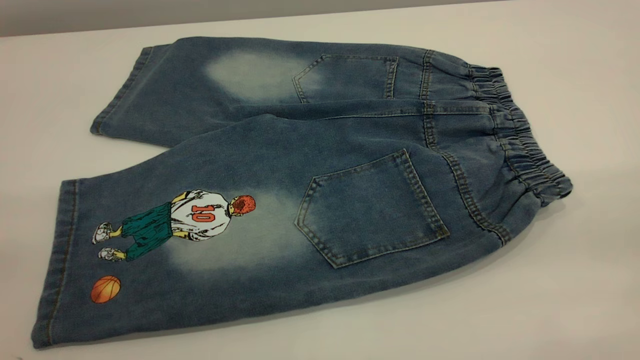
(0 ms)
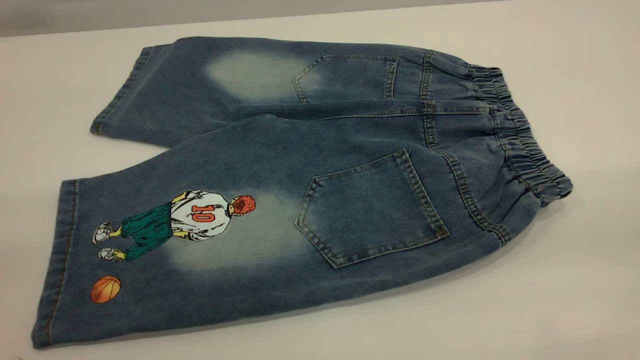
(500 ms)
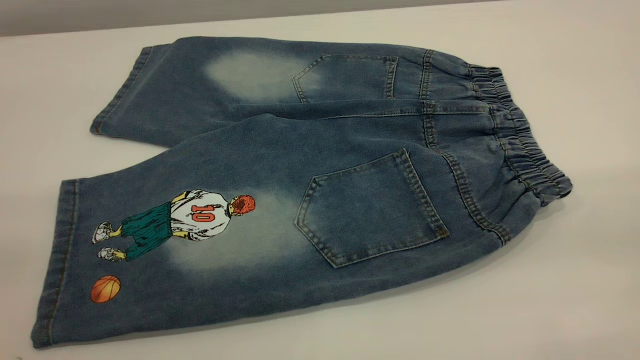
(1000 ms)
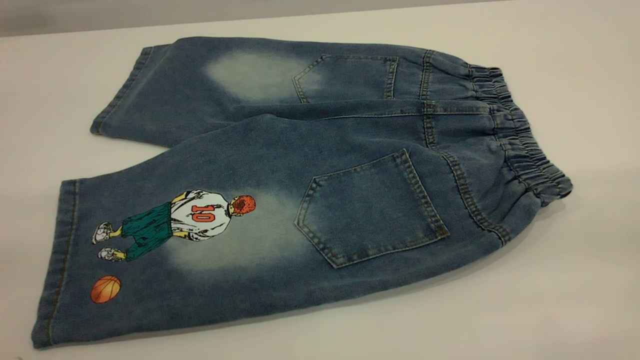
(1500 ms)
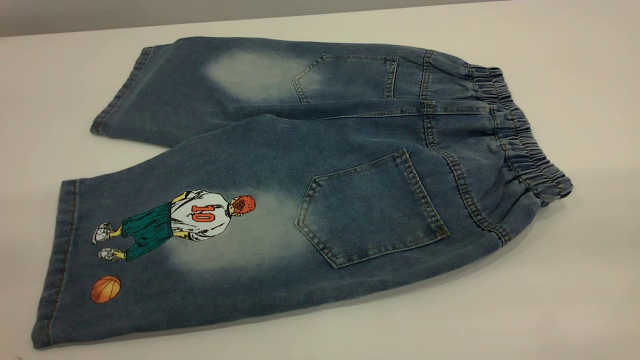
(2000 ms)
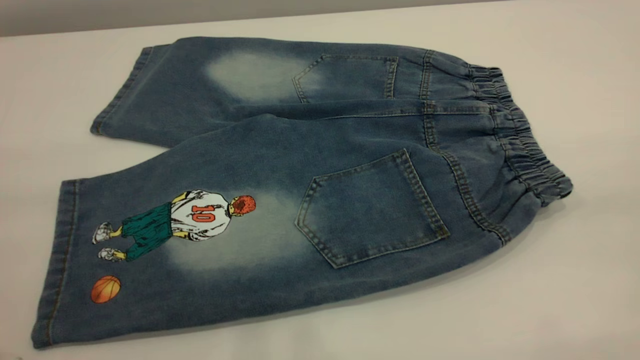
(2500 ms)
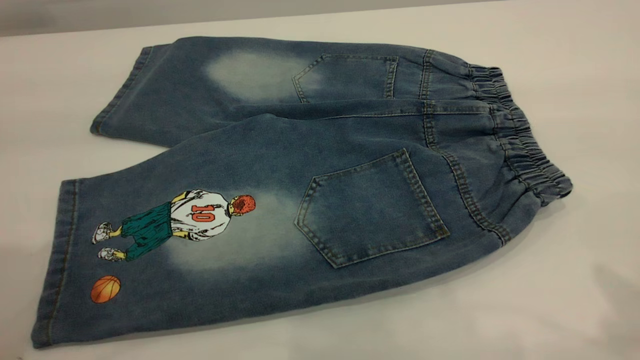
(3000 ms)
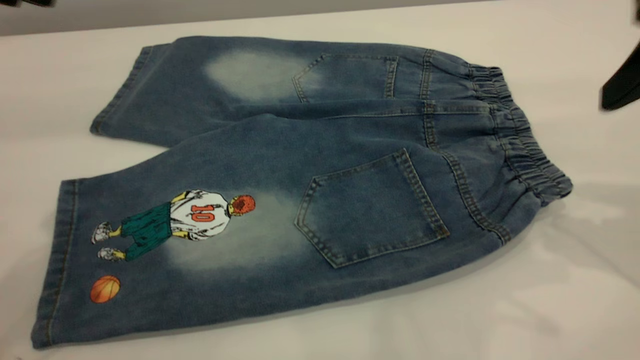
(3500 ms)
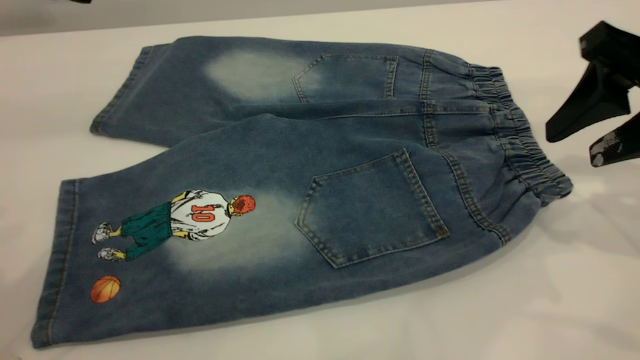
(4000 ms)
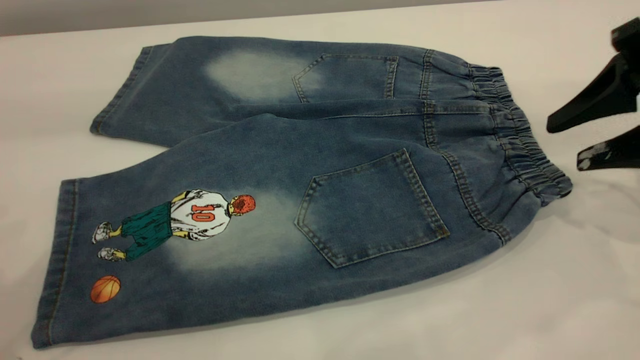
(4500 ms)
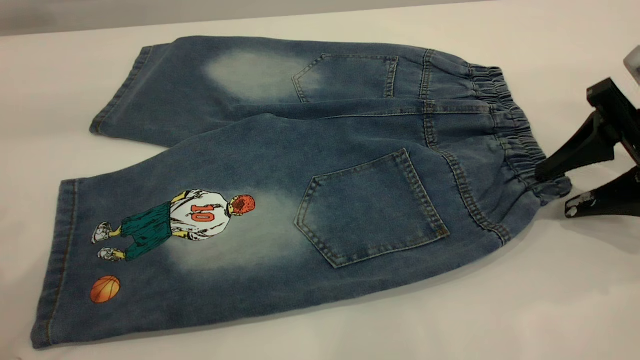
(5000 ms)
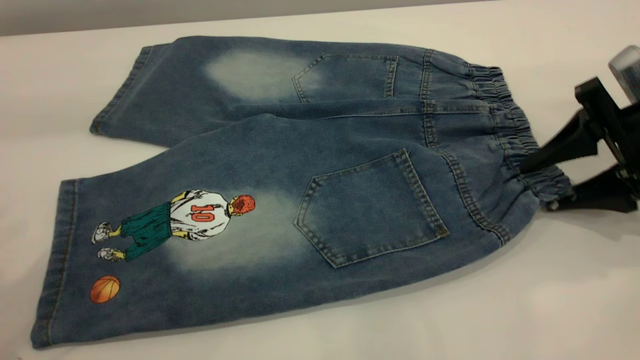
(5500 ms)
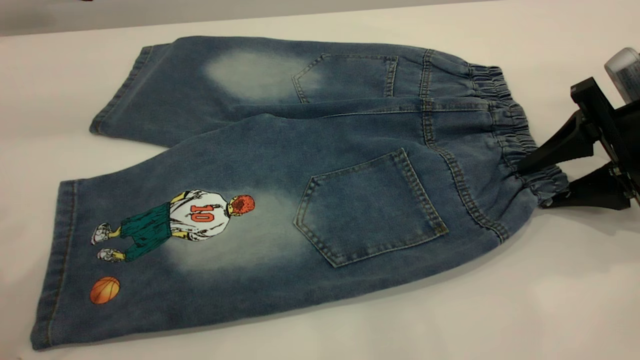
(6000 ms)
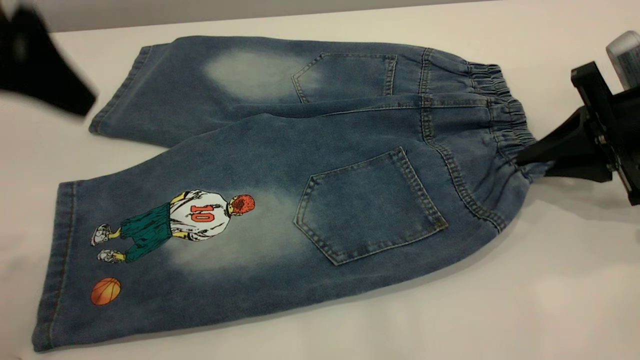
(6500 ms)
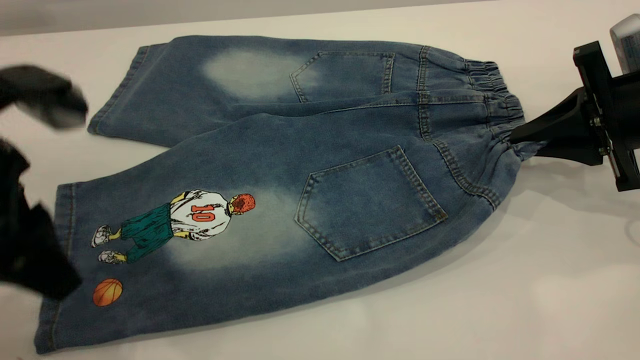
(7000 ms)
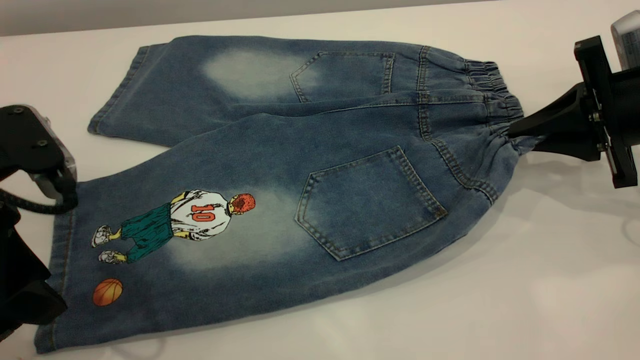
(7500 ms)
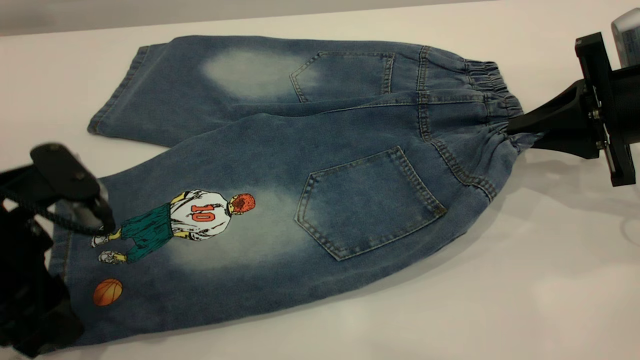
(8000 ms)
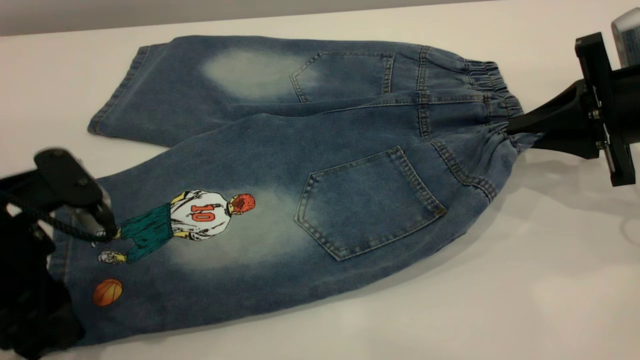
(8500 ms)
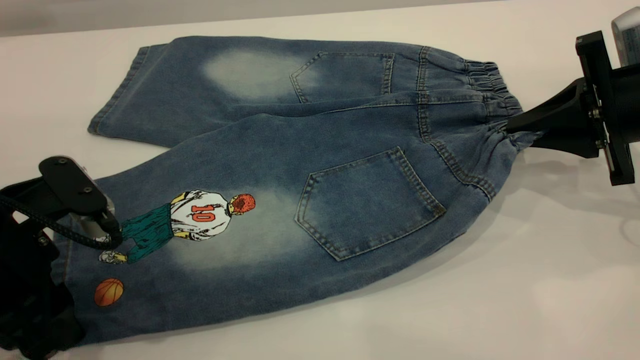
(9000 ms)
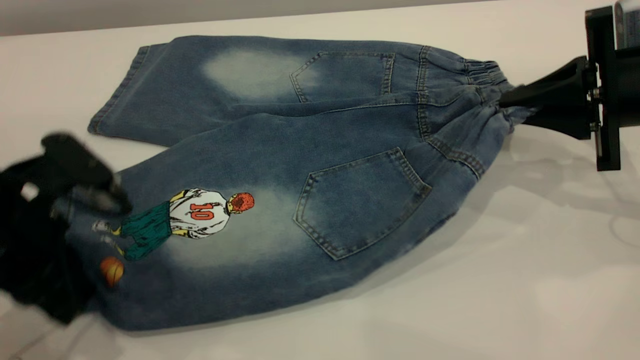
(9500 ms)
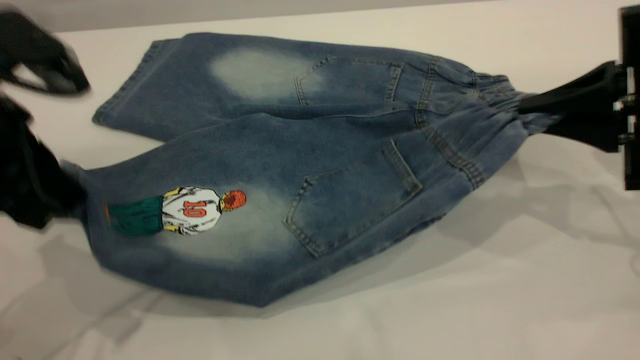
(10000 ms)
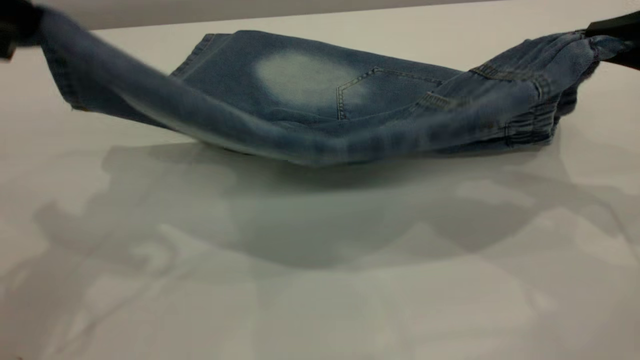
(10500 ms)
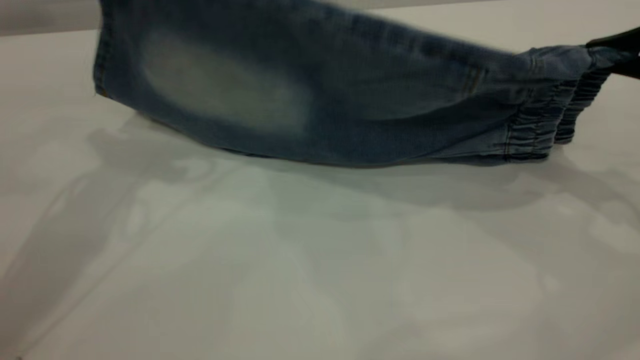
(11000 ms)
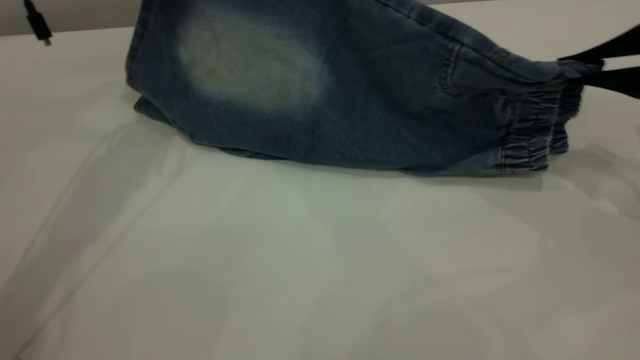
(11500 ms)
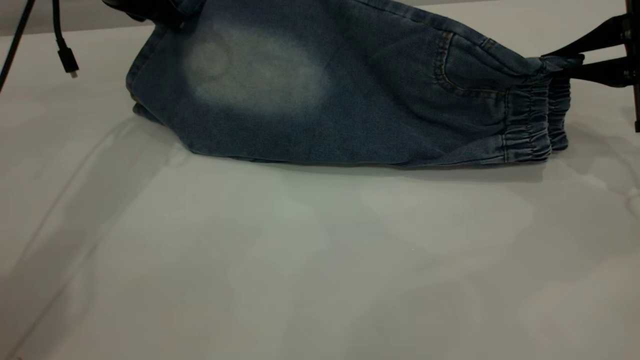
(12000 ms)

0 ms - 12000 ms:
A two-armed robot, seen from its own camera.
2000 ms - 4000 ms: The right gripper moves forward and downward, approximately 30 cm, while the left gripper heads forward, covering approximately 25 cm.
4000 ms - 6000 ms: The right gripper travels downward by some 10 cm.
6000 ms - 8000 ms: The left gripper shifts roughly 20 cm downward. The right gripper closes its fingers.
8000 ms - 10000 ms: The right gripper shifts by approximately 5 cm; the left gripper goes some 10 cm upward, and closes its fingers.
10000 ms - 12000 ms: The right gripper moves forward, some 5 cm. Meanwhile the left gripper moves forward, about 25 cm.

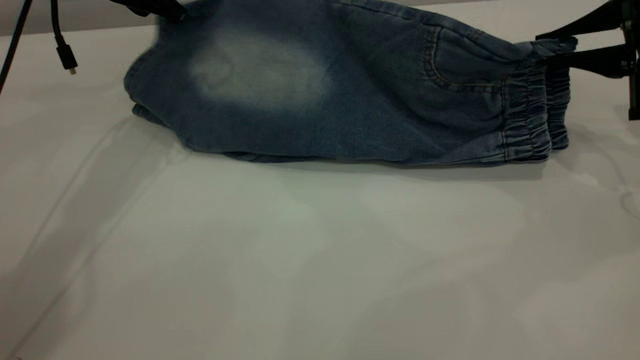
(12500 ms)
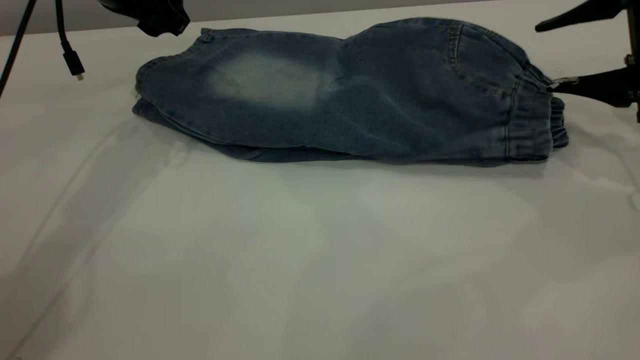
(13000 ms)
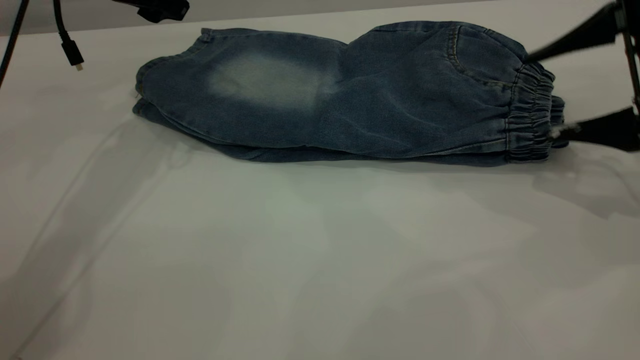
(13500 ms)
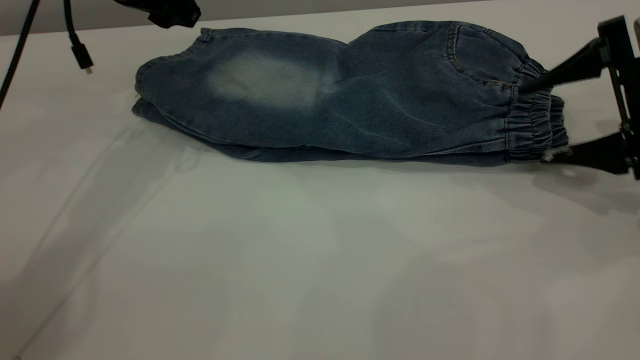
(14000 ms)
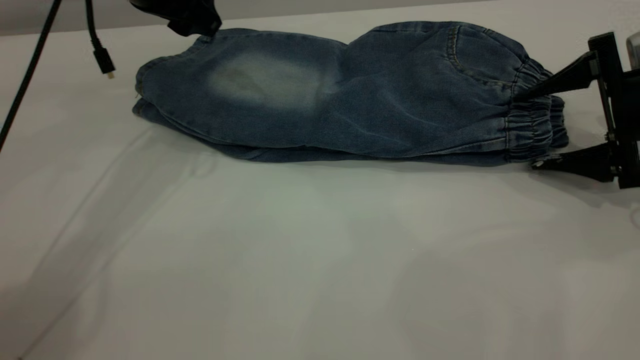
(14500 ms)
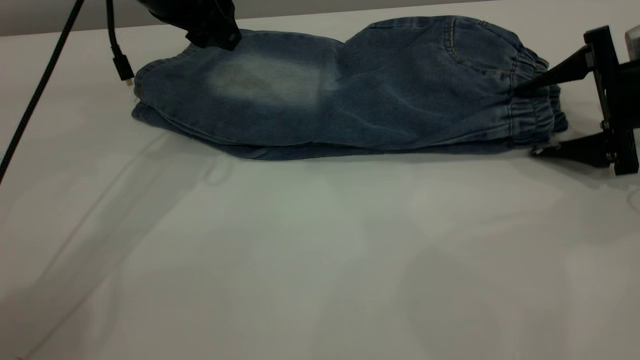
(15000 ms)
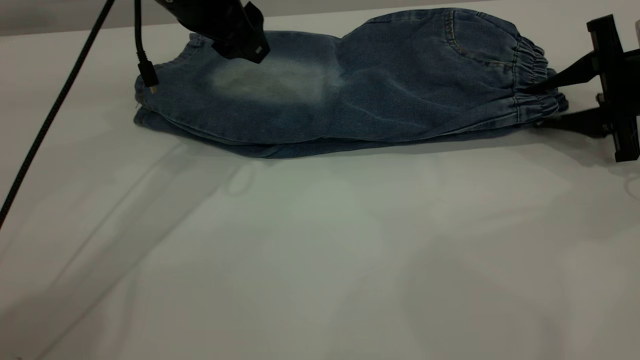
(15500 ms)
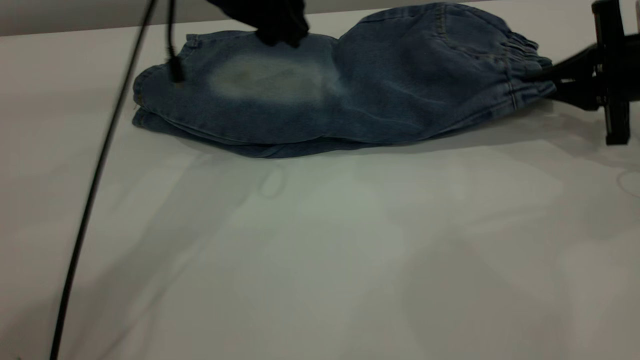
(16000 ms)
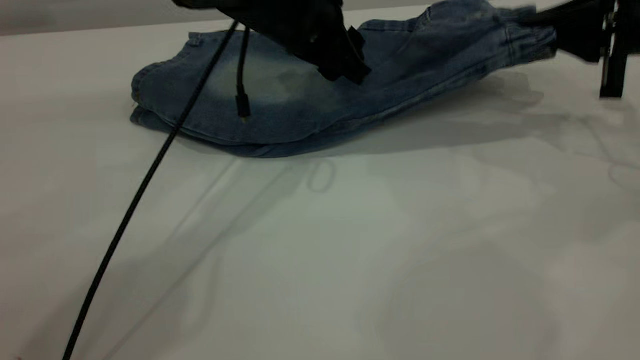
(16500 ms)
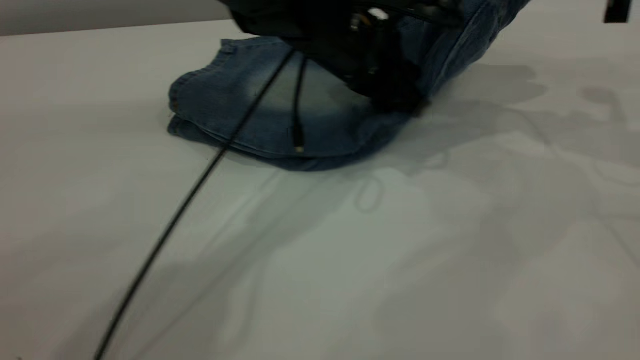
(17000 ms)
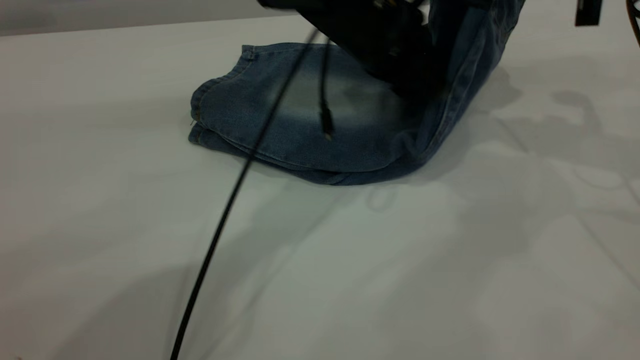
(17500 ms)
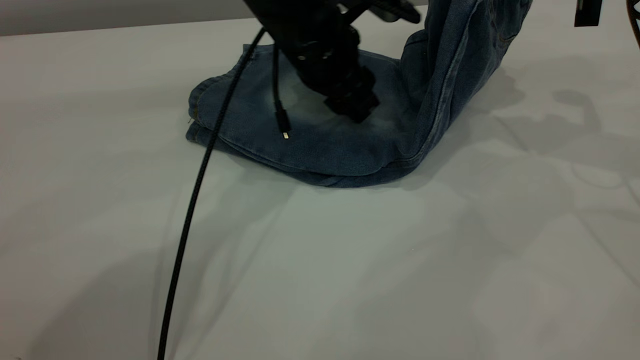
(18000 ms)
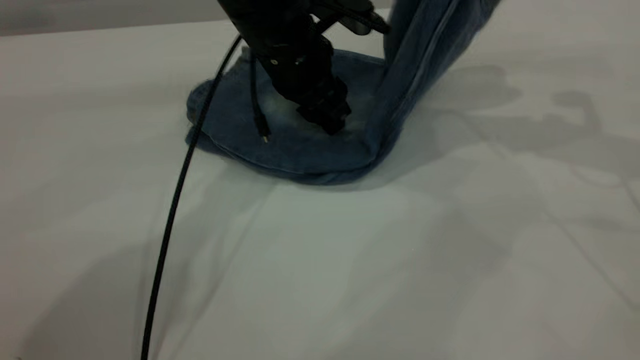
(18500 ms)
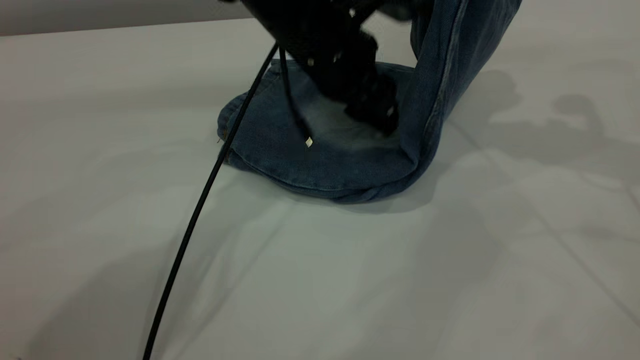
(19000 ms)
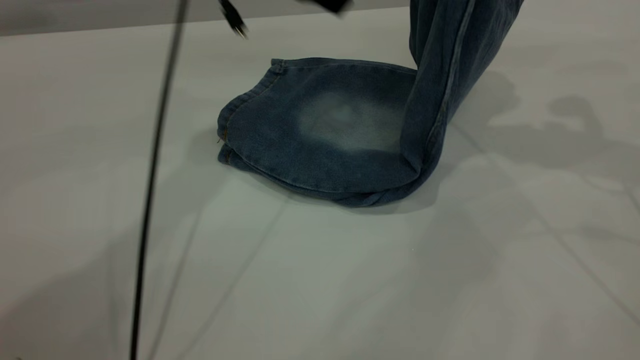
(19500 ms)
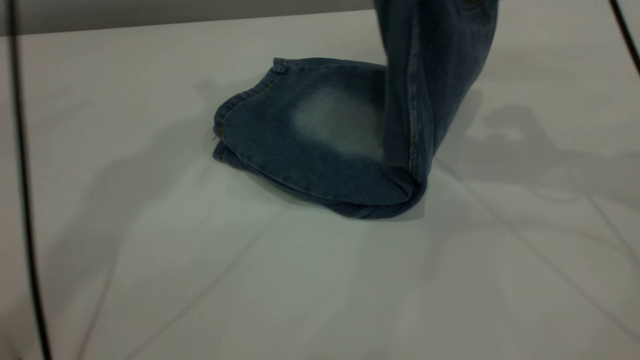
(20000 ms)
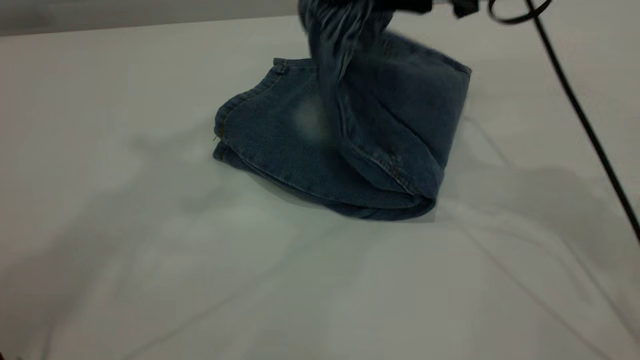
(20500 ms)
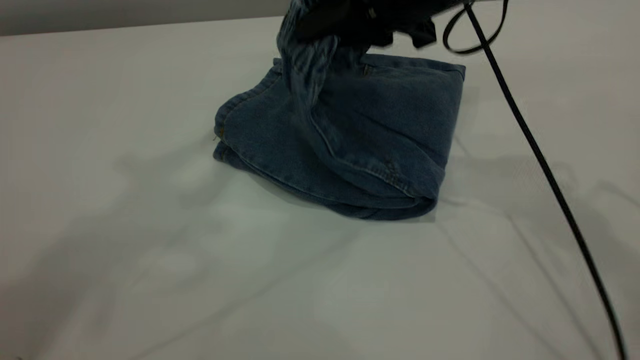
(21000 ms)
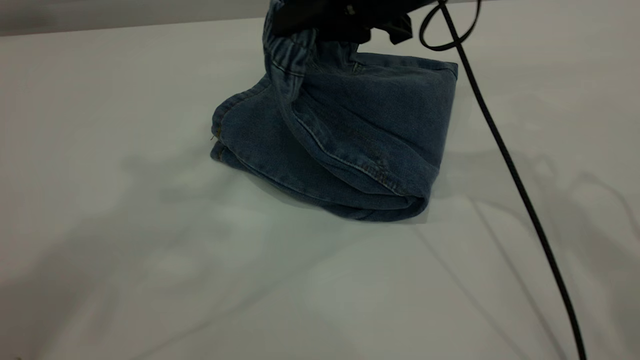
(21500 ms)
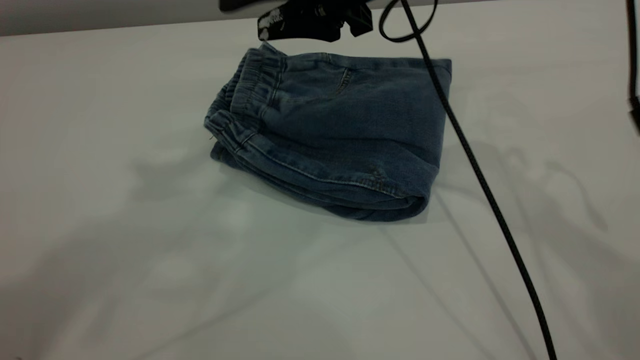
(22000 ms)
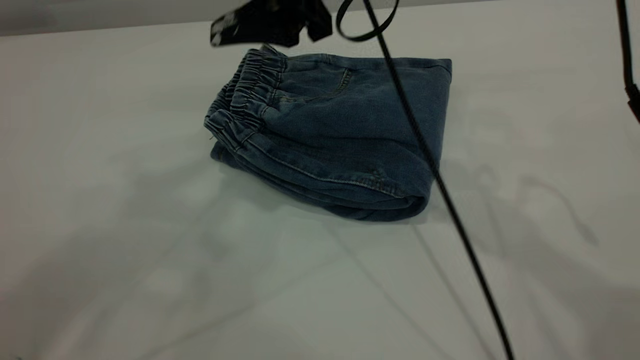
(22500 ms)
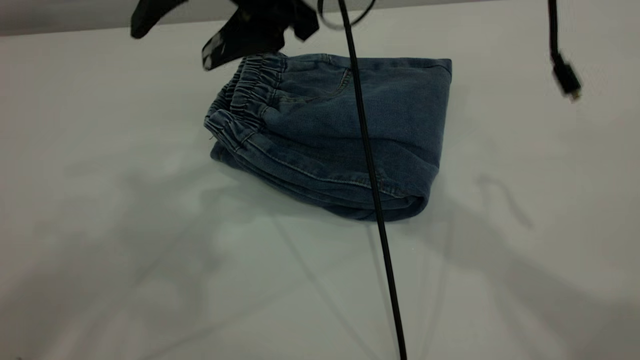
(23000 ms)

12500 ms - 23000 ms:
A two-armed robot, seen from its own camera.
Step, 13500 ms - 22000 ms: Fold your pants from right to left.
12500 ms - 14500 ms: The right gripper is displaced downward by approximately 5 cm, and opens its fingers; the left gripper opens its fingers.
14500 ms - 16500 ms: The right gripper travels upward by approximately 5 cm, and closes its fingers, while the left gripper goes approximately 15 cm to the right and downward.
16500 ms - 19000 ms: The right gripper heads upward and to the left, covering roughly 15 cm.
19000 ms - 21000 ms: The right gripper shifts roughly 15 cm to the left. Meanwhile the left gripper goes some 40 cm upward.
21000 ms - 23000 ms: The right gripper heads to the left, covering about 10 cm, and opens up.
